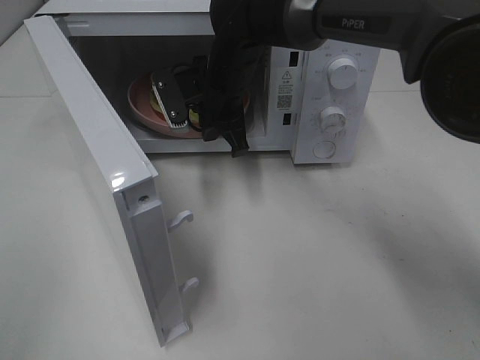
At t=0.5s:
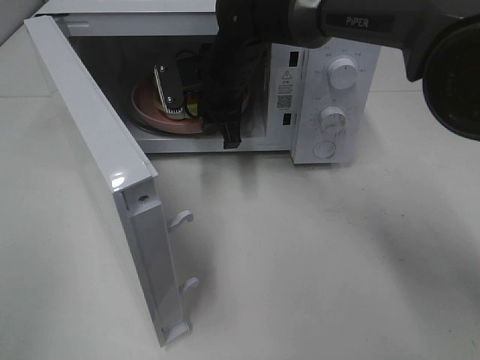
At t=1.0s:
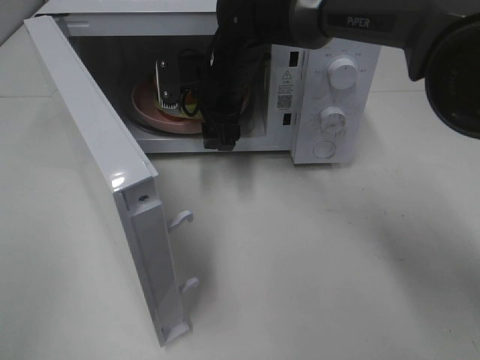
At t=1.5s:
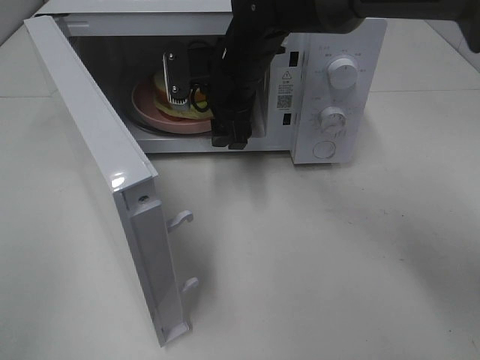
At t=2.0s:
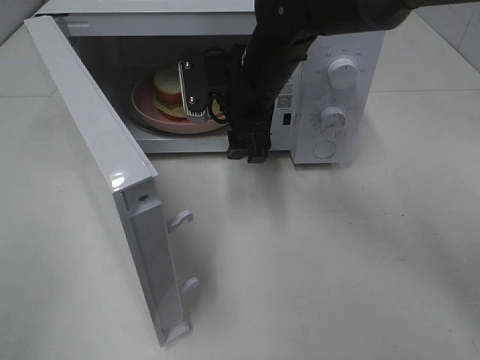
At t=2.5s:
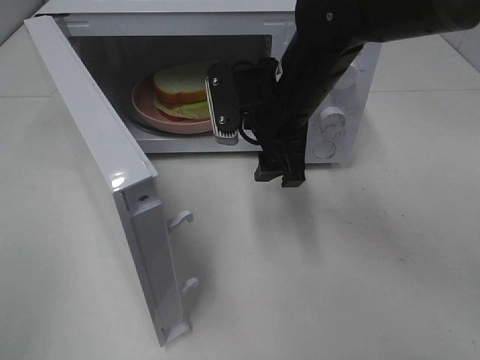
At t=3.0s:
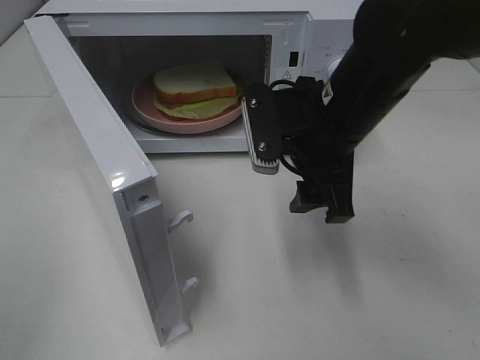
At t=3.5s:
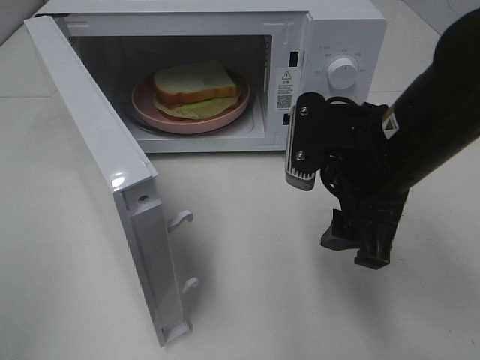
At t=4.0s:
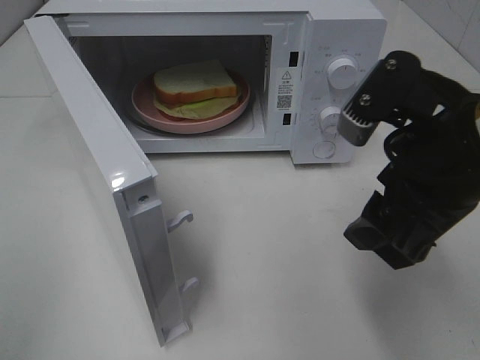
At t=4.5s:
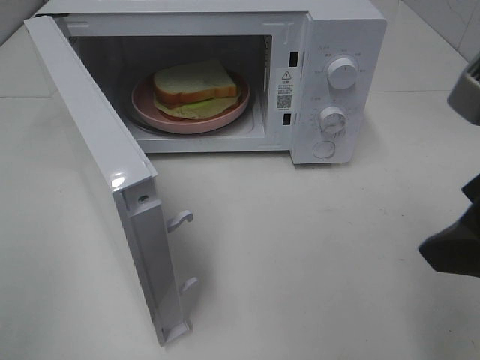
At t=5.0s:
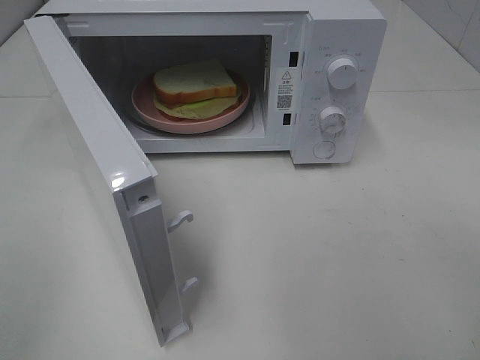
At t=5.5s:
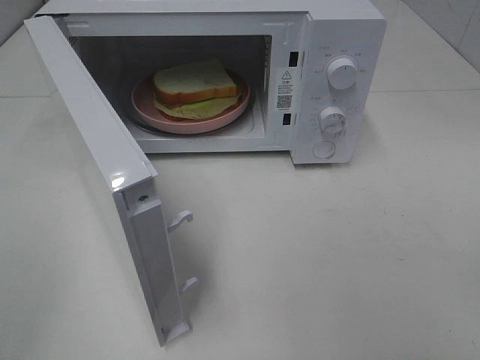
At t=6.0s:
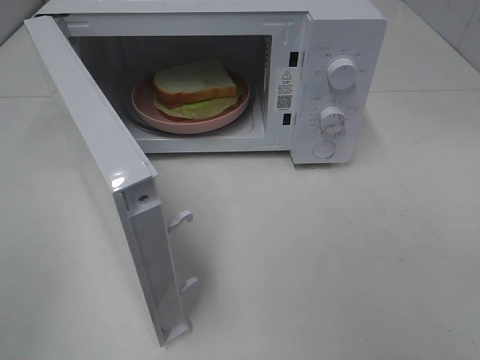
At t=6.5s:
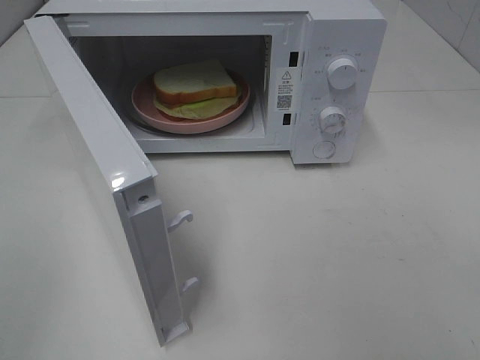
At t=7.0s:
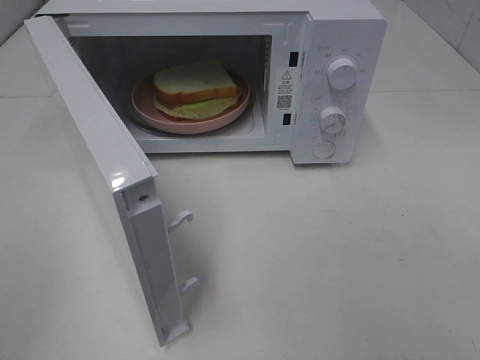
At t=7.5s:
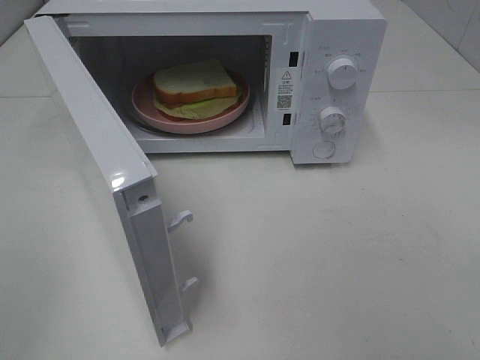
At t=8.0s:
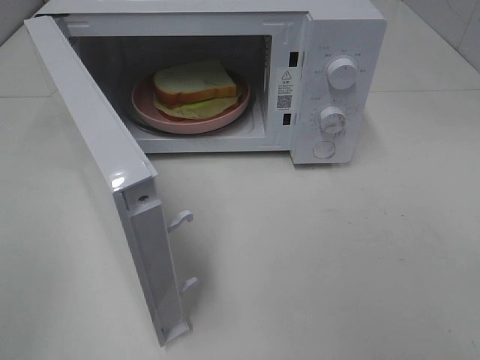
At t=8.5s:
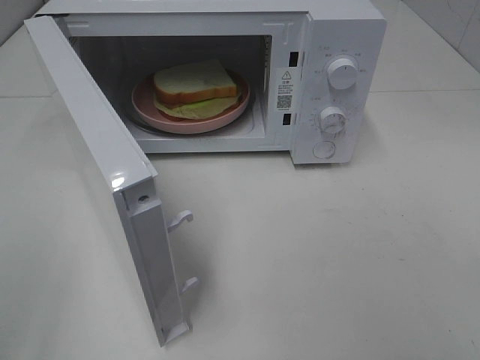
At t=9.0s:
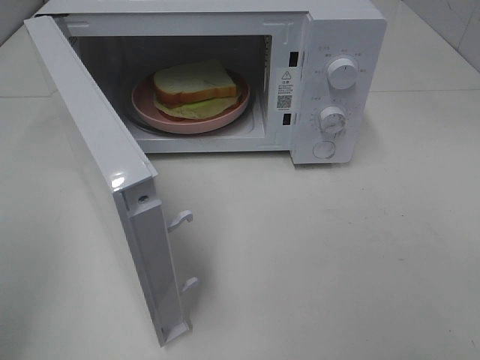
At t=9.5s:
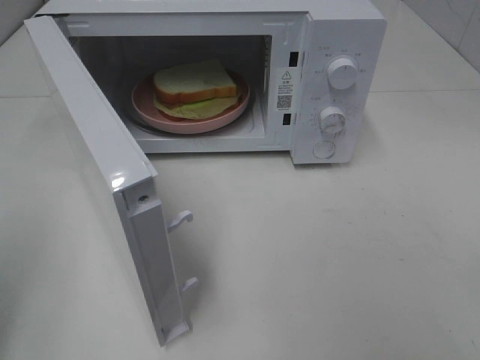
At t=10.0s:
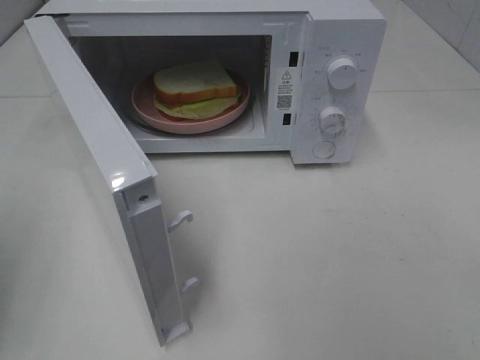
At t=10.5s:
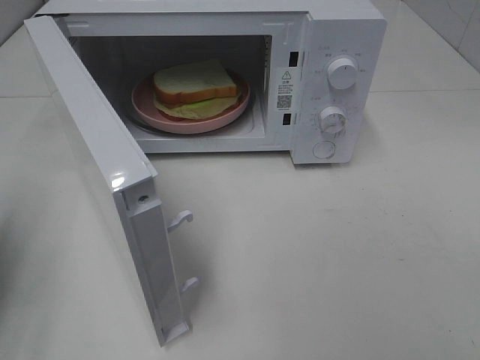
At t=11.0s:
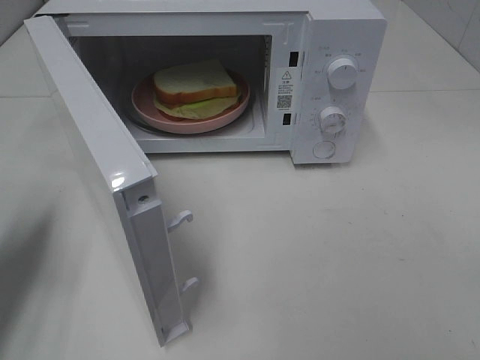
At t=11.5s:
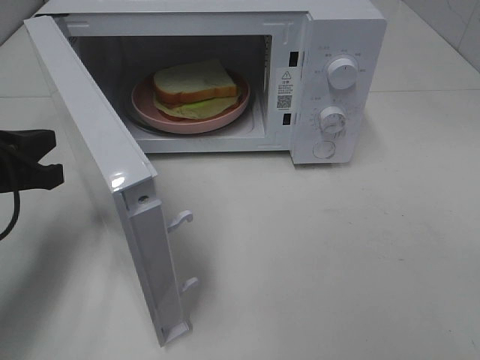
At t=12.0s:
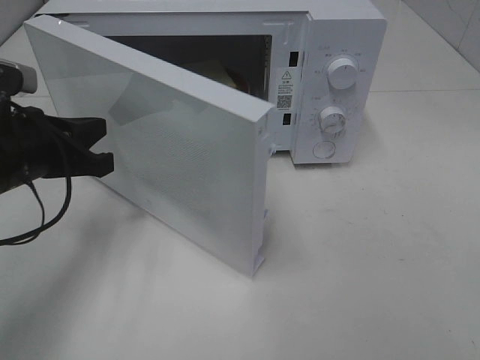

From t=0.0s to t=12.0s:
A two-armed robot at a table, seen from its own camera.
Task of the whole recording: Heat Sandwich.
From t=0.0s to t=2.0s: The right gripper shifts by about 5 cm, and opens up.
From t=2.0s to t=4.0s: The right gripper moves backward and to the right, roughly 25 cm.
From t=4.0s to t=6.0s: The right gripper goes about 20 cm backward and to the right.
From t=10.0s to t=12.0s: The left gripper heads forward, to the right and downward, covering approximately 20 cm.

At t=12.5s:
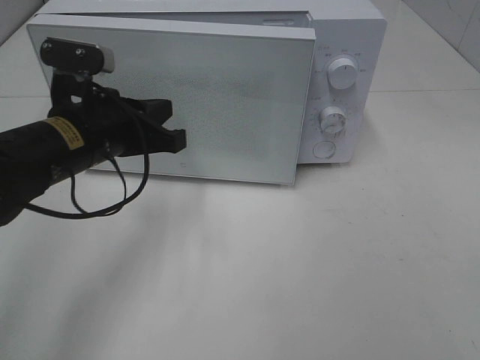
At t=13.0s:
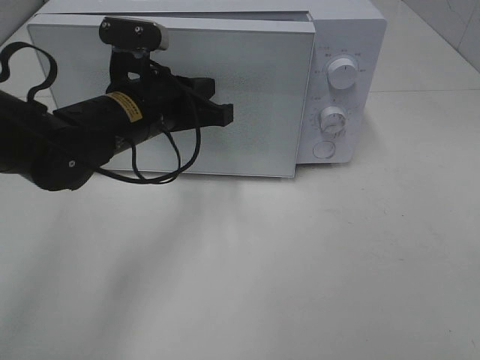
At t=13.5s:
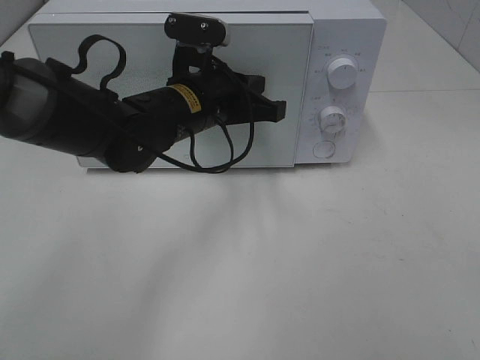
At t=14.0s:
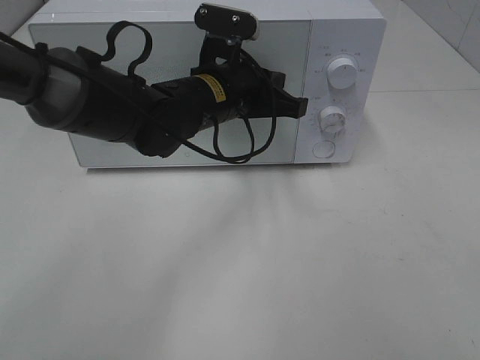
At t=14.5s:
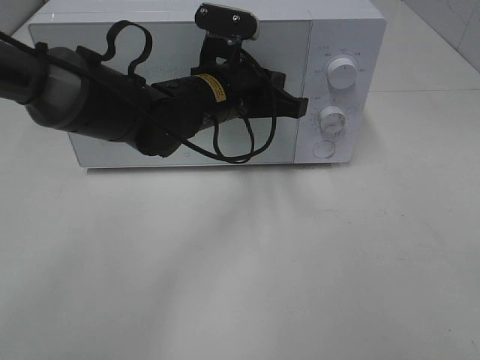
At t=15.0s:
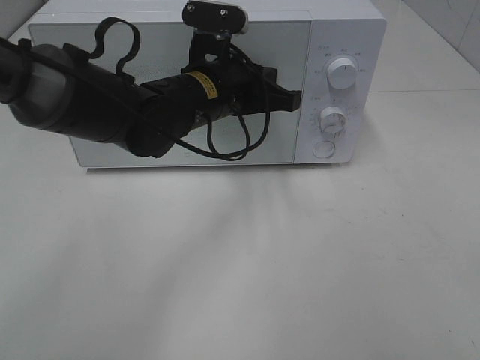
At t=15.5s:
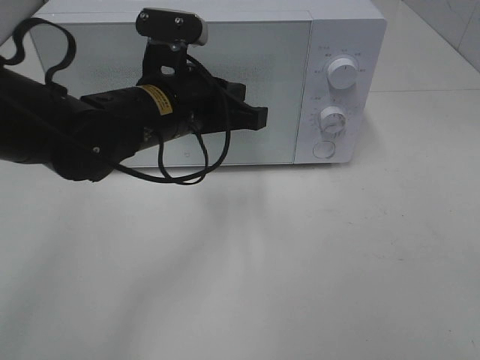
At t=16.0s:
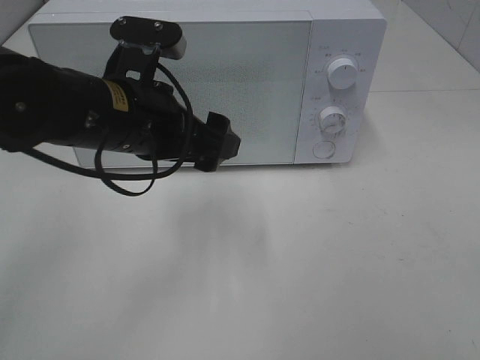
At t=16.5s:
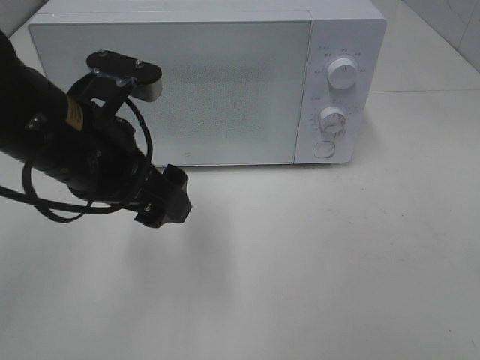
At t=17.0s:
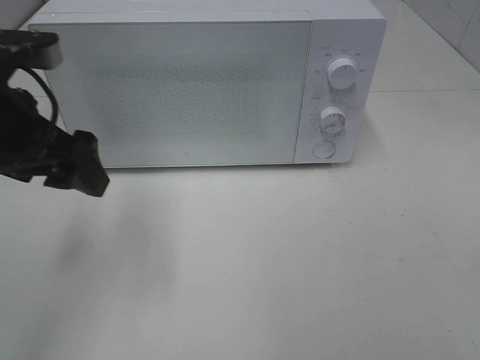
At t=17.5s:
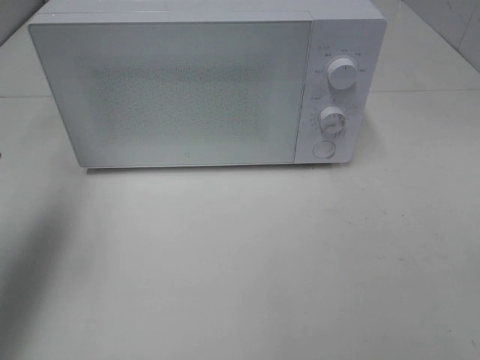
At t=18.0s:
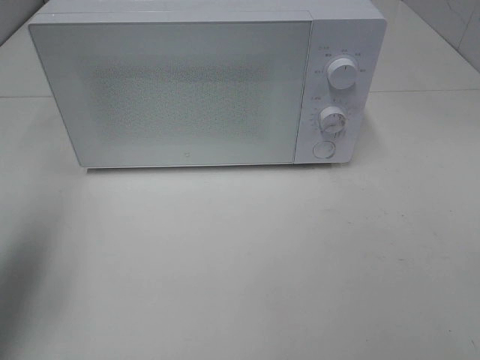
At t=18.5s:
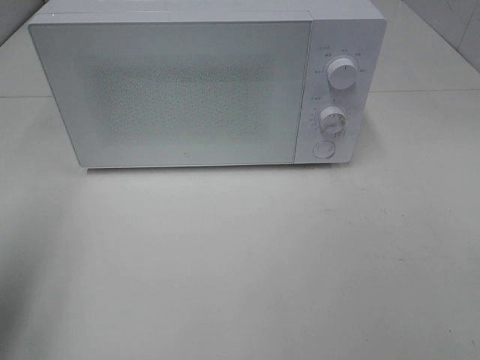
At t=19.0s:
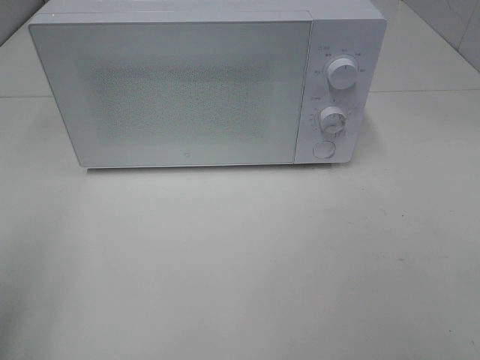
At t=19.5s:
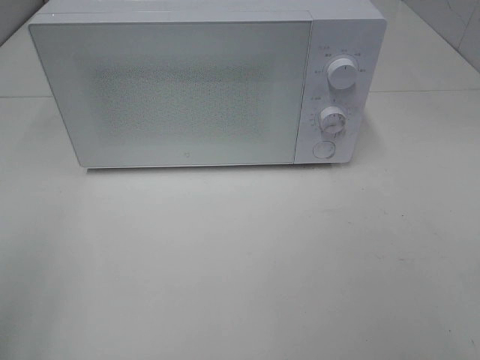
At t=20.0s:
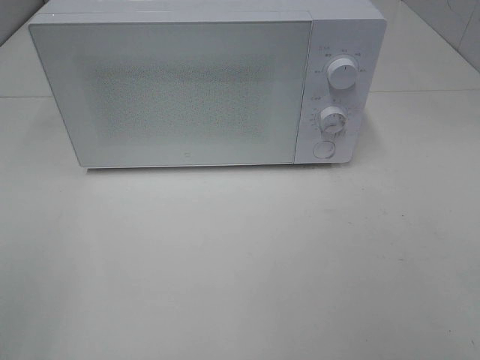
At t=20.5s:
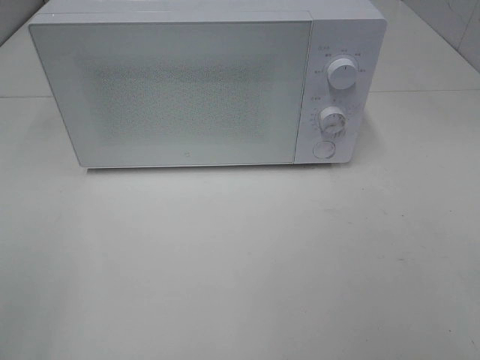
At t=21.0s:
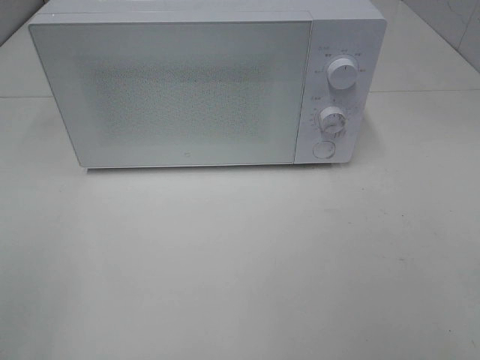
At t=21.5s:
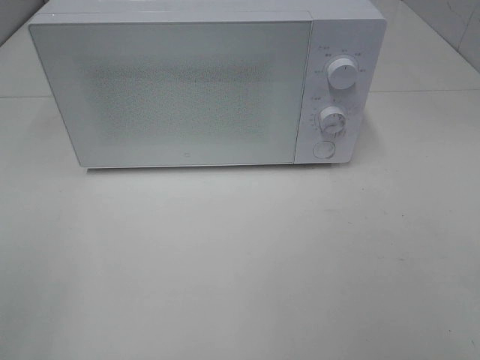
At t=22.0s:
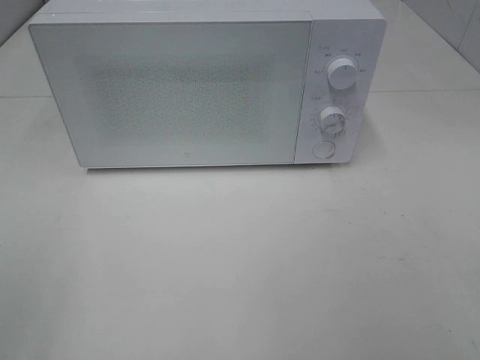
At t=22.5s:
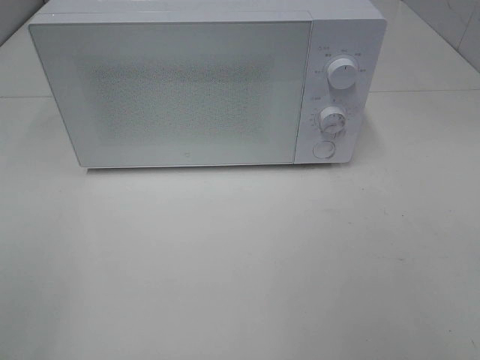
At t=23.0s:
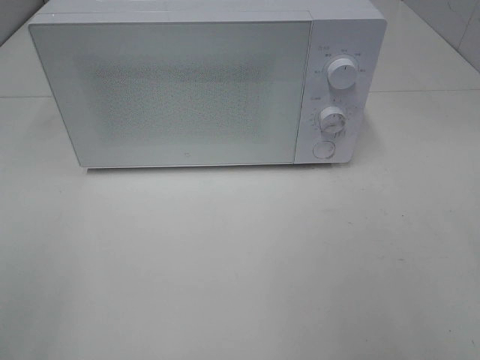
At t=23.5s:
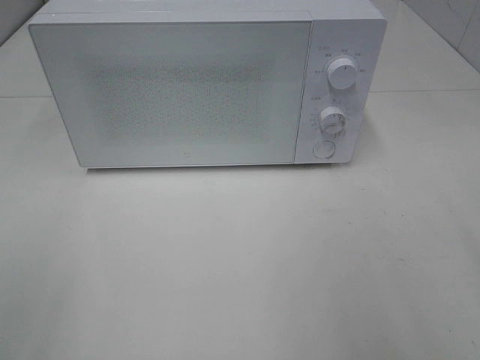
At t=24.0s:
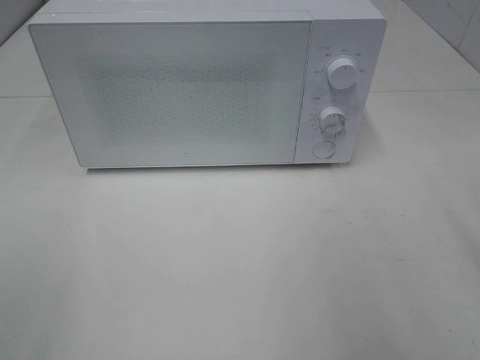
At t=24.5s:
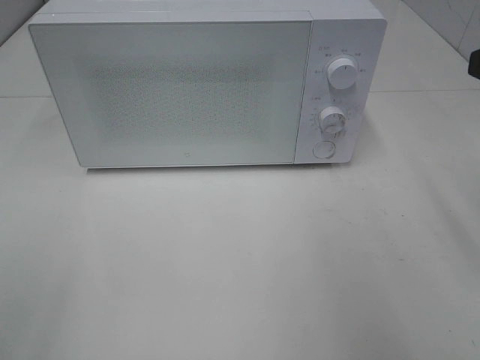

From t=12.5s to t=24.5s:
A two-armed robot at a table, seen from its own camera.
Task of the whole recording: Heat Sandwich.
Step, from t=12.5s to t=15.5s: Left hand: close the microwave door.
From t=12.5s to t=14.5s: The left gripper travels to the right and forward by about 15 cm.
From t=14.5s to t=16.5s: The left gripper moves backward and to the left, roughly 15 cm, and opens its fingers.
From t=16.5s to t=18.5s: The left gripper heads to the left and backward, covering some 20 cm.
From t=18.5s to t=20.5s: The left gripper shifts approximately 15 cm backward.

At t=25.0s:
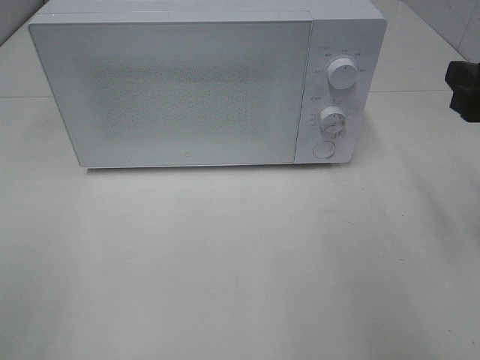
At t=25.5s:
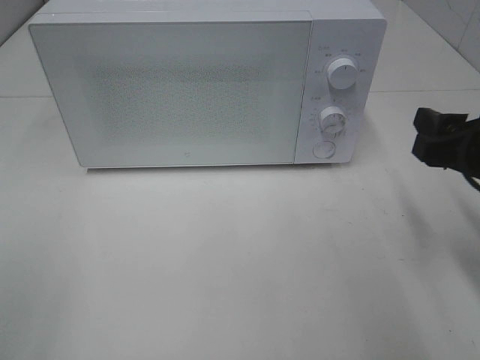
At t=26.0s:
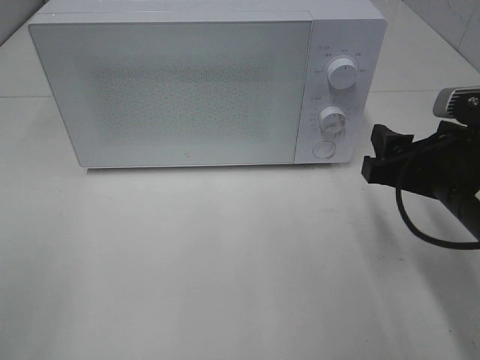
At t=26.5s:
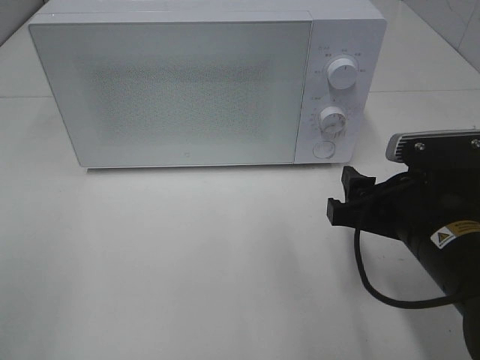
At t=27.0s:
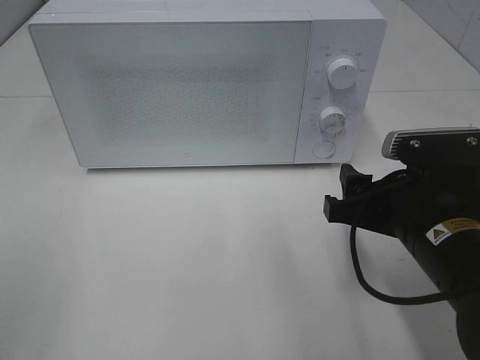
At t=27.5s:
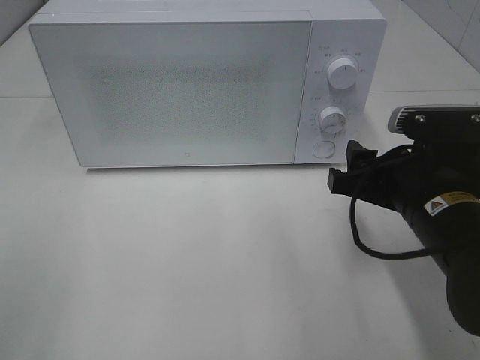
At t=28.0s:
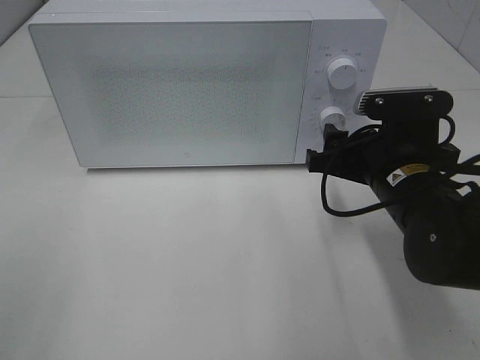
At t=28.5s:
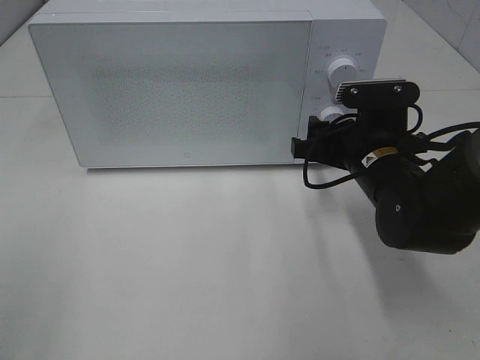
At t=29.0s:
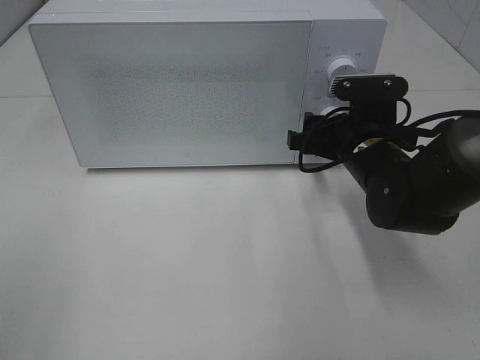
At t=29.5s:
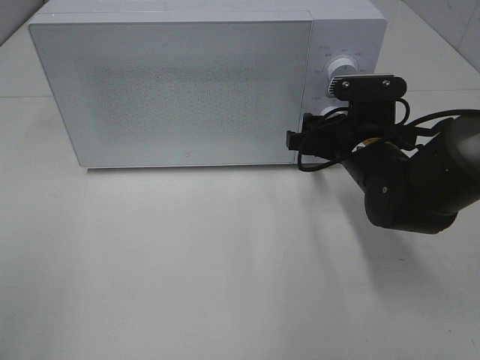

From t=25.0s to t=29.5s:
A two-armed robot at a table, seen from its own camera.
Task of the whole recording: Heat Sandwich.
From t=25.0s to t=27.0s: The right gripper shifts about 15 cm to the left and downward.
From t=27.0s to t=29.5s: The right gripper goes approximately 15 cm forward.
